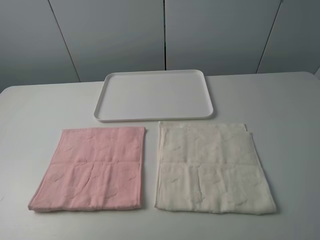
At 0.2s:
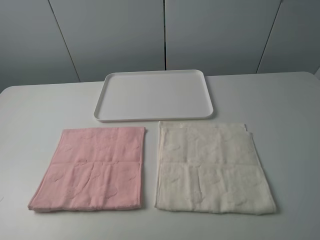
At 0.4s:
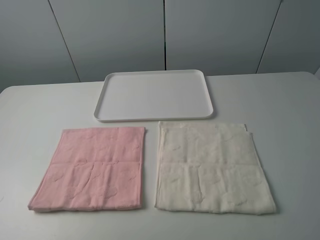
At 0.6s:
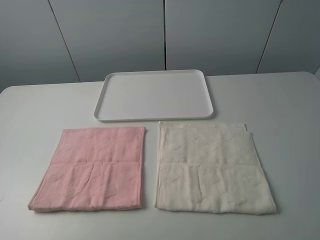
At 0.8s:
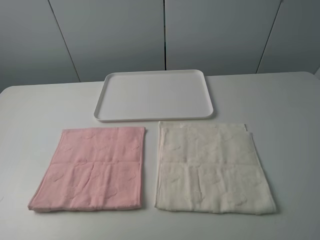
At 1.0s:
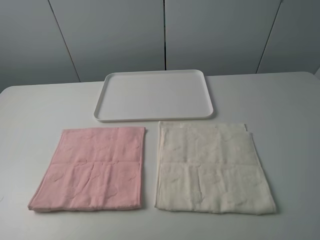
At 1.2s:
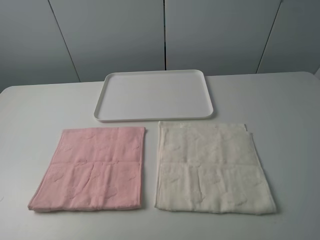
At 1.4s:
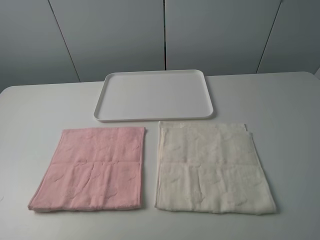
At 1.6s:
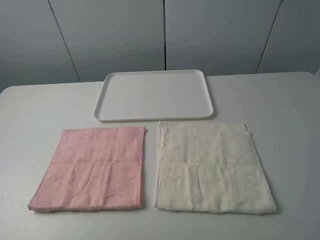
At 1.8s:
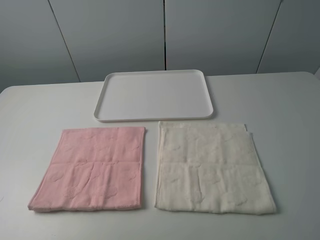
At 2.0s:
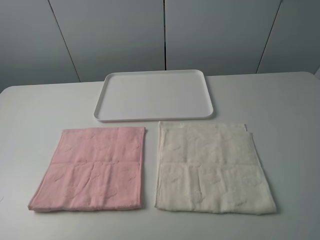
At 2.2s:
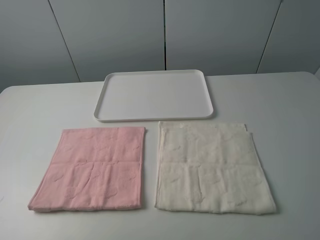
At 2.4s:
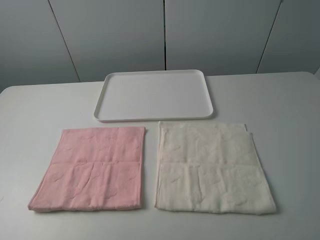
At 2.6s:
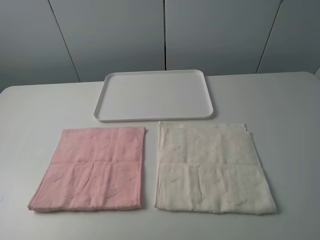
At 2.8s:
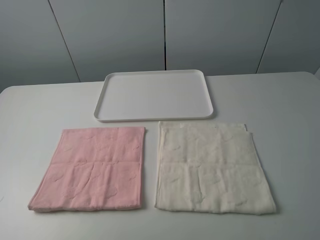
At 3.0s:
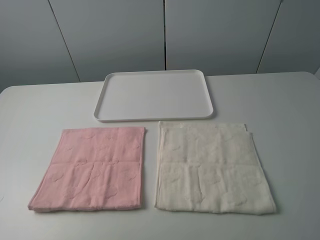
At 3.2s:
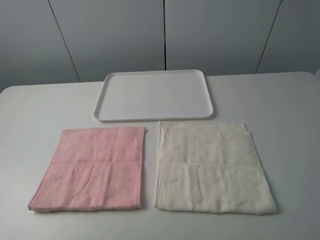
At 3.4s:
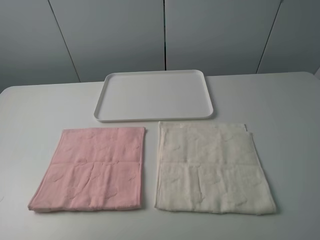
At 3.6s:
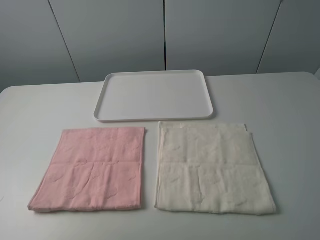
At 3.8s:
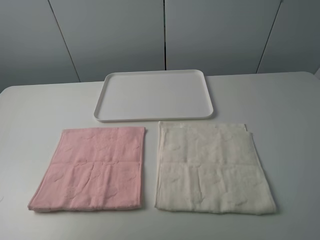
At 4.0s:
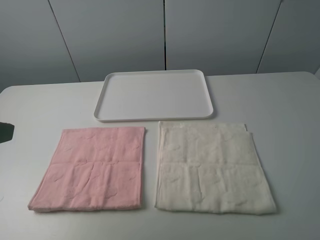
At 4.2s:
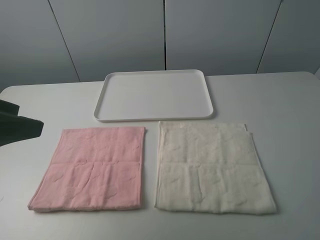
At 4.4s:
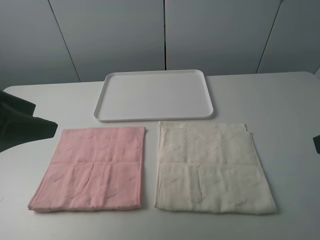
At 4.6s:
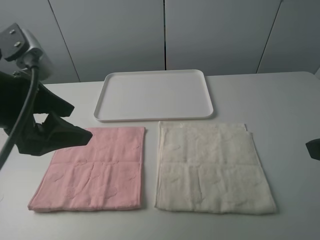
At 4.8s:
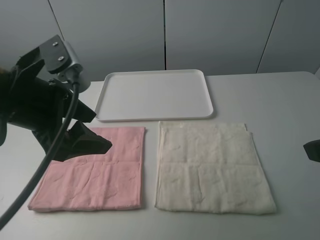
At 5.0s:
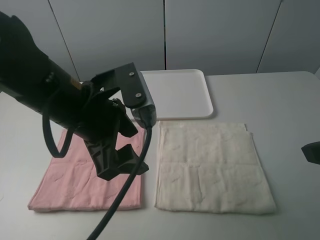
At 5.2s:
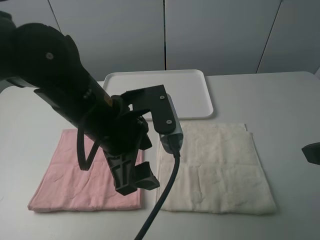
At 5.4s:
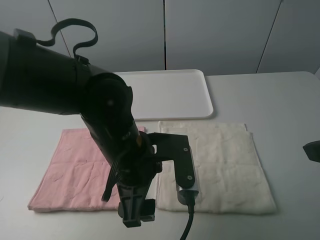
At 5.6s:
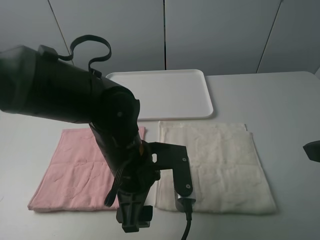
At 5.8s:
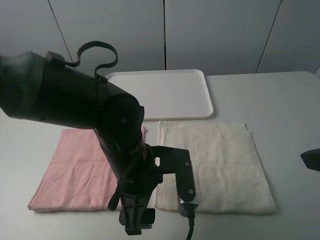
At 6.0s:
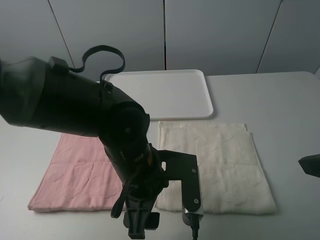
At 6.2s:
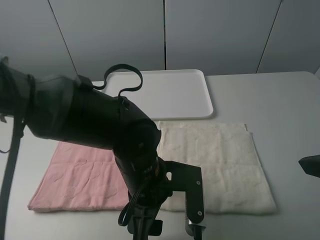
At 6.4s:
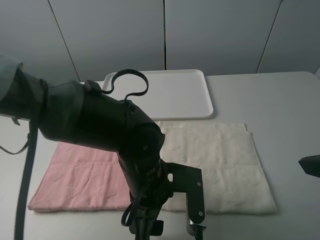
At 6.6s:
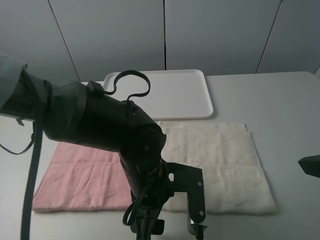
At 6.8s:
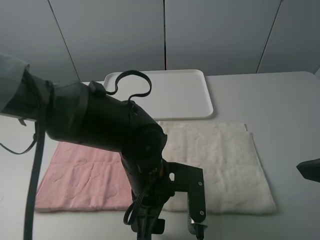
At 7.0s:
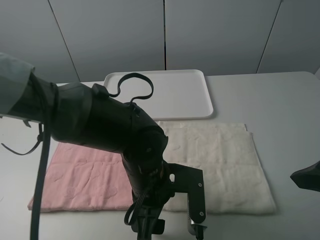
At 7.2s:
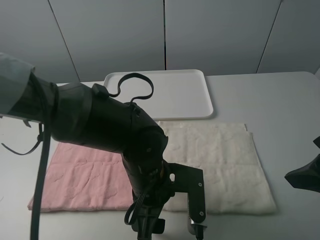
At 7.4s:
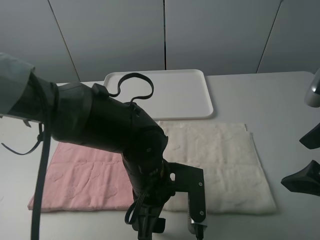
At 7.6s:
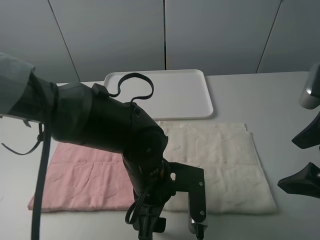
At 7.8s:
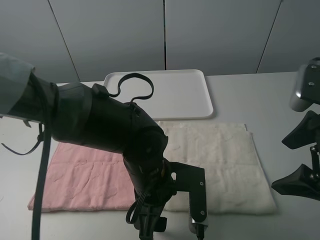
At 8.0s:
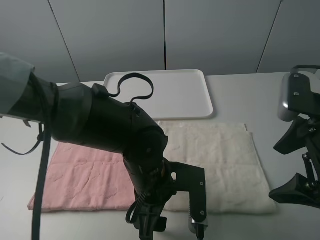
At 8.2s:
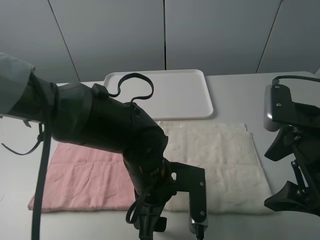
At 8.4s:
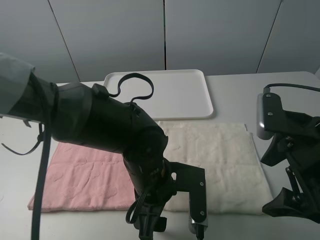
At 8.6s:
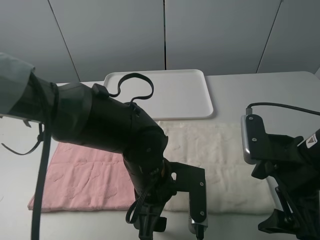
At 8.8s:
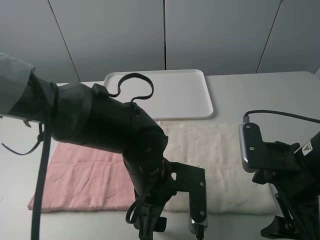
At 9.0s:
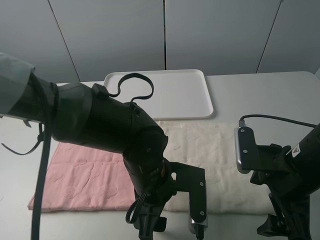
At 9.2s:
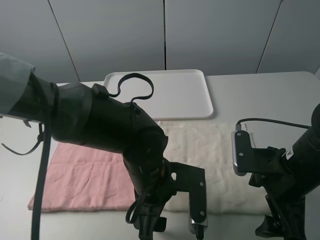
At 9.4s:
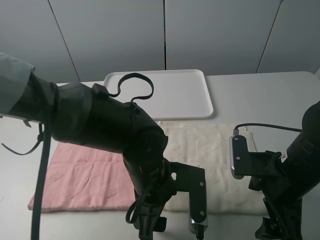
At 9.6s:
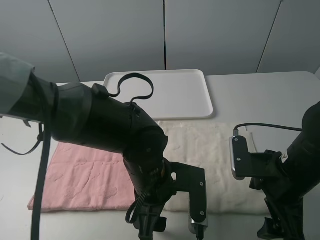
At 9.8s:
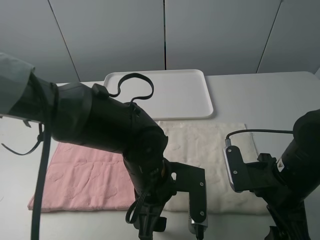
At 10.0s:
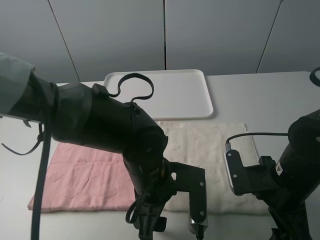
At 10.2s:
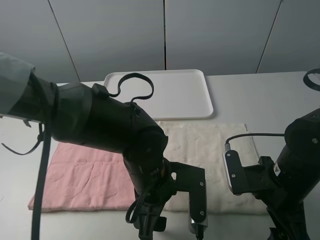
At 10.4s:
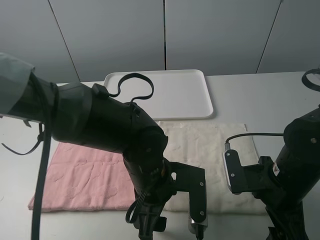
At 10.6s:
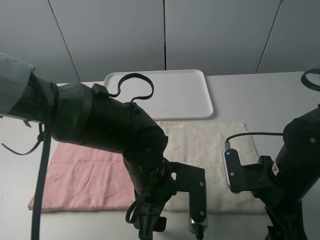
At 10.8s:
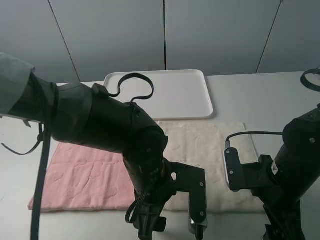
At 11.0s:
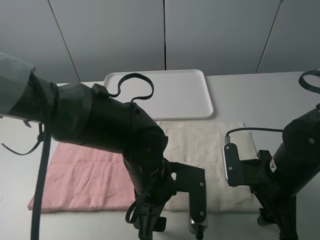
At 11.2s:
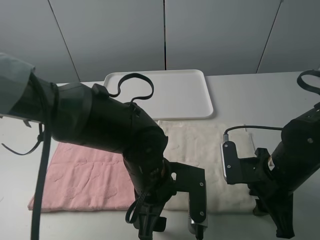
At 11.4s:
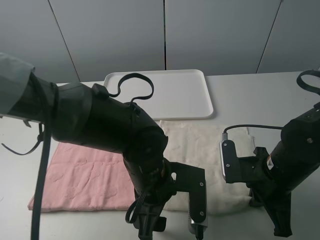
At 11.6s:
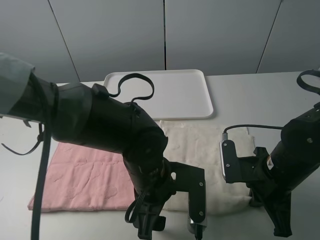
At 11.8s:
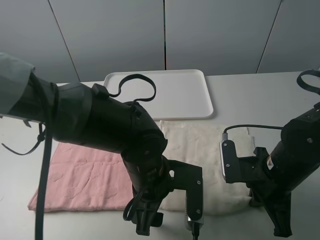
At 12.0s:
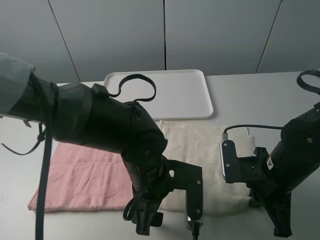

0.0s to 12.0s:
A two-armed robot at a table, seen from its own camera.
Task of the whole recording: fold one of the towels by two grippers and place it on the tray,then fold another towel by two grippers and place it on the folded towel.
0.0s to 3.0s: Both grippers stay put.
3.0s to 4.4s: The left gripper moves forward and to the right, about 20 cm.
4.4s to 6.0s: The left gripper goes about 25 cm to the right and downward.
6.0s to 7.6s: The right gripper ends up approximately 5 cm from where it was.
7.6s to 9.0s: The right gripper moves downward, approximately 10 cm.
9.0s to 10.4s: The grippers stay close to where they were, moving slightly.
10.4s to 12.0s: The right gripper closes its fingers.

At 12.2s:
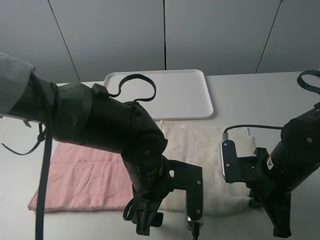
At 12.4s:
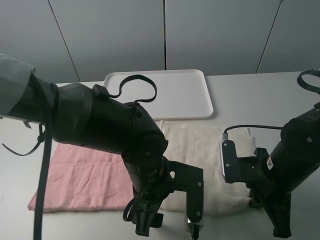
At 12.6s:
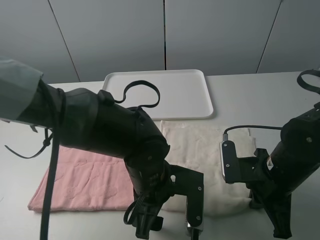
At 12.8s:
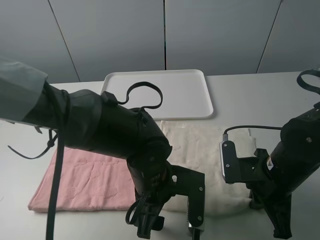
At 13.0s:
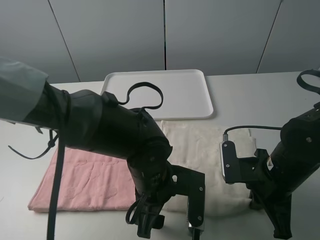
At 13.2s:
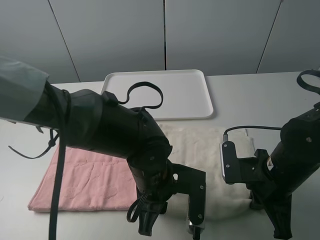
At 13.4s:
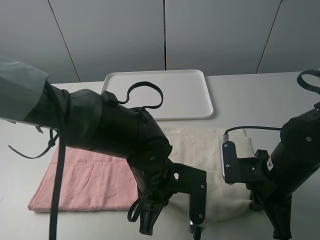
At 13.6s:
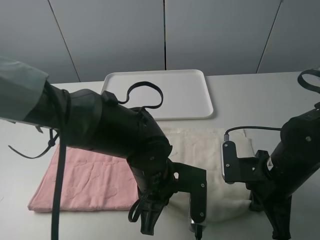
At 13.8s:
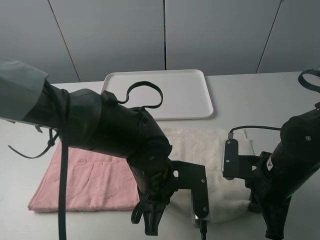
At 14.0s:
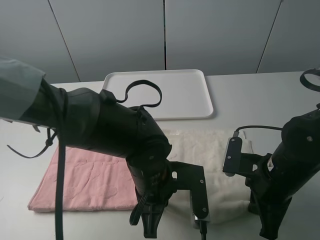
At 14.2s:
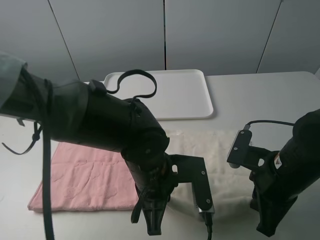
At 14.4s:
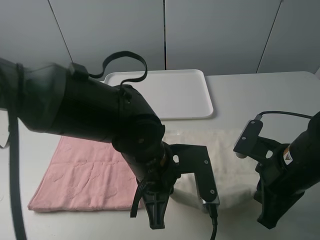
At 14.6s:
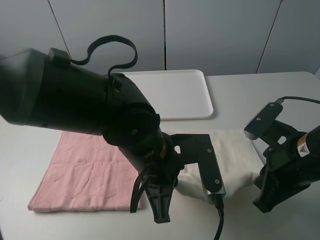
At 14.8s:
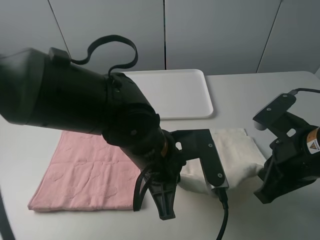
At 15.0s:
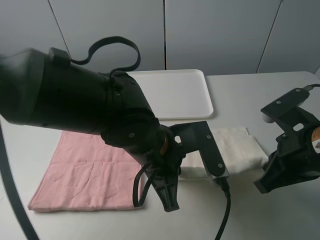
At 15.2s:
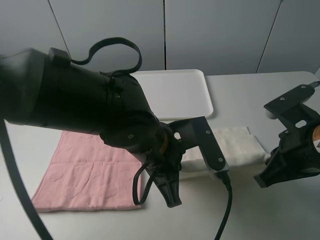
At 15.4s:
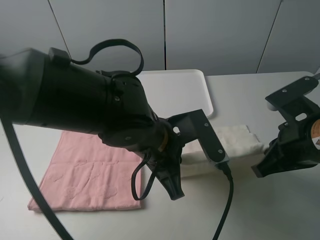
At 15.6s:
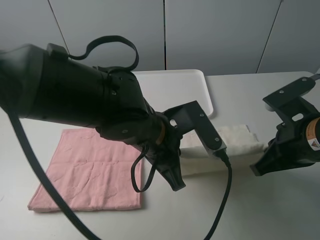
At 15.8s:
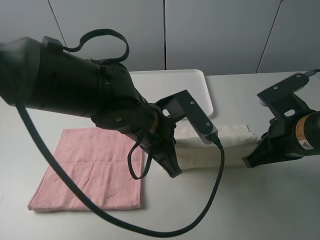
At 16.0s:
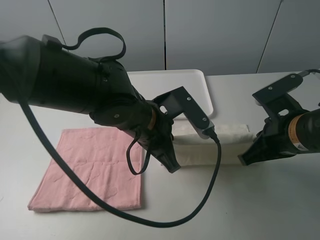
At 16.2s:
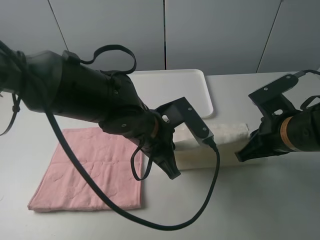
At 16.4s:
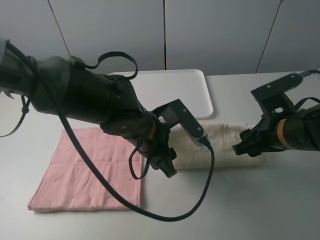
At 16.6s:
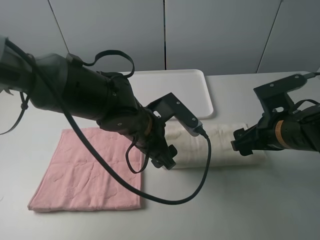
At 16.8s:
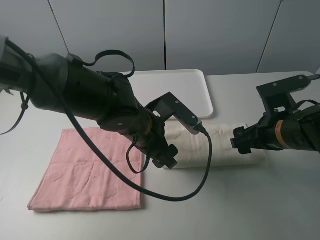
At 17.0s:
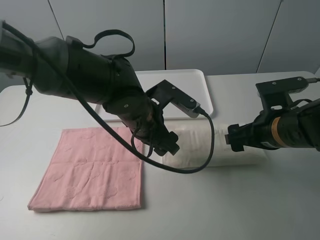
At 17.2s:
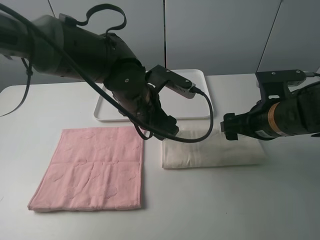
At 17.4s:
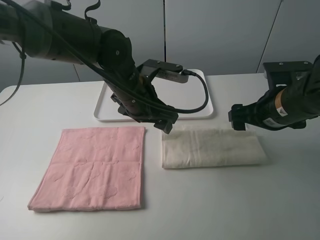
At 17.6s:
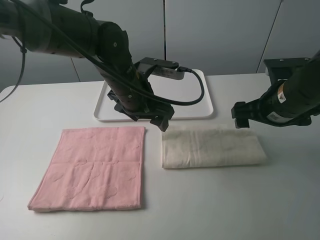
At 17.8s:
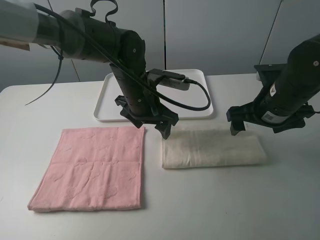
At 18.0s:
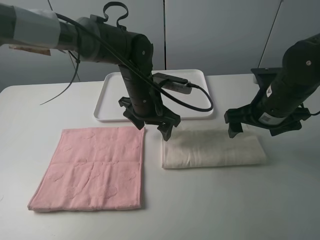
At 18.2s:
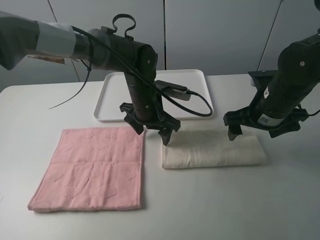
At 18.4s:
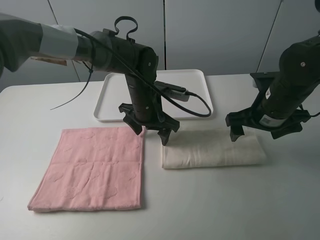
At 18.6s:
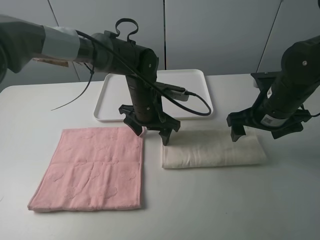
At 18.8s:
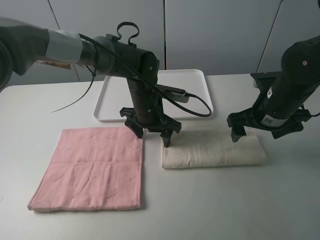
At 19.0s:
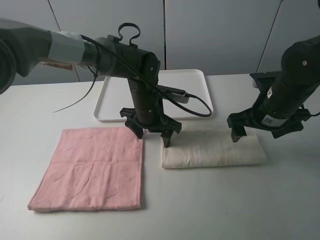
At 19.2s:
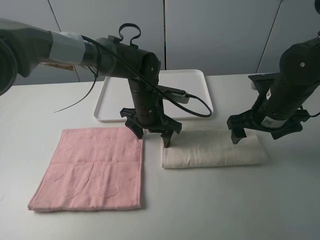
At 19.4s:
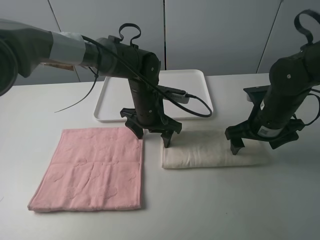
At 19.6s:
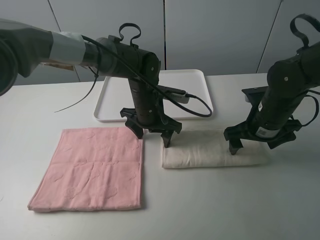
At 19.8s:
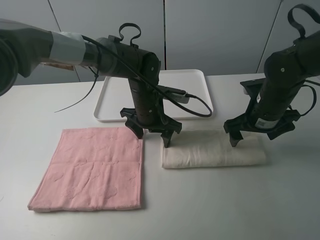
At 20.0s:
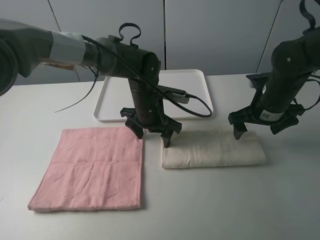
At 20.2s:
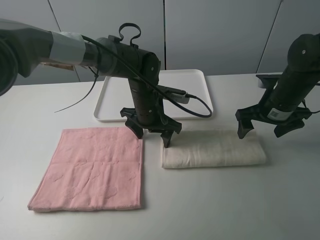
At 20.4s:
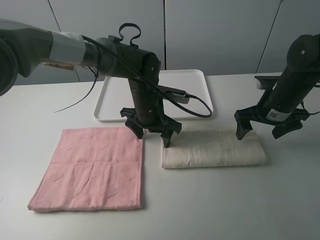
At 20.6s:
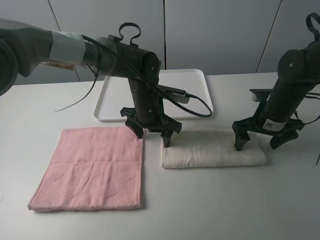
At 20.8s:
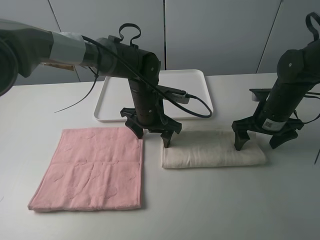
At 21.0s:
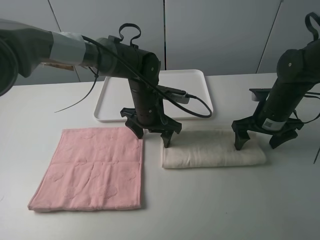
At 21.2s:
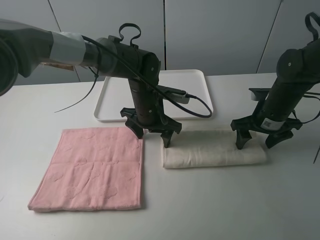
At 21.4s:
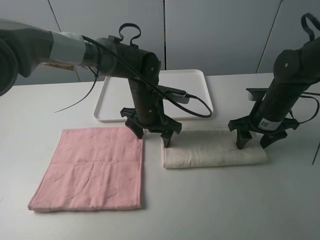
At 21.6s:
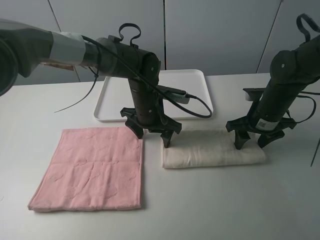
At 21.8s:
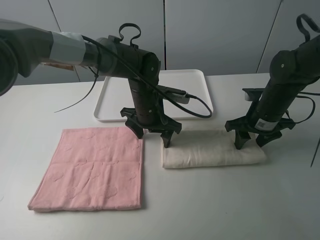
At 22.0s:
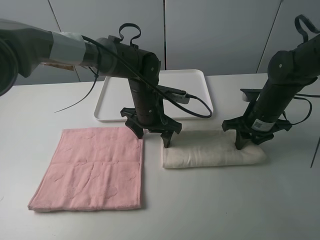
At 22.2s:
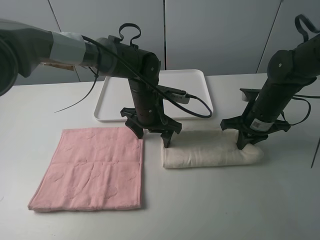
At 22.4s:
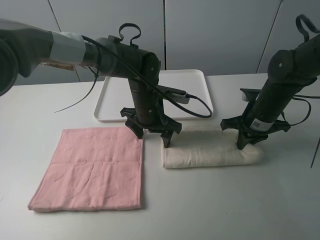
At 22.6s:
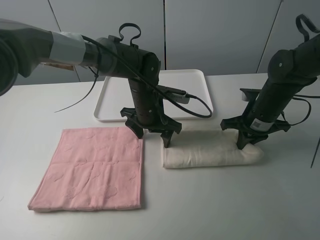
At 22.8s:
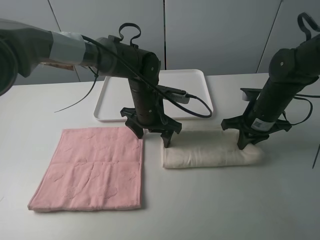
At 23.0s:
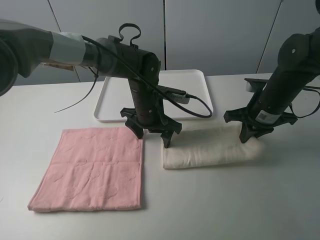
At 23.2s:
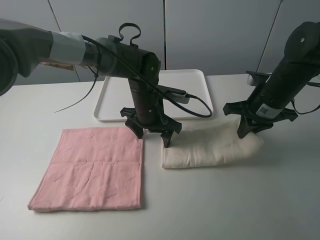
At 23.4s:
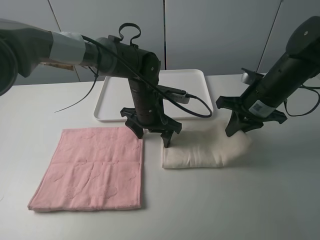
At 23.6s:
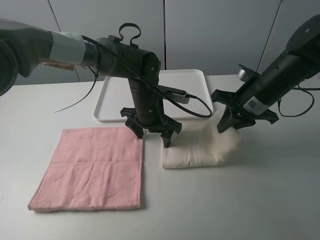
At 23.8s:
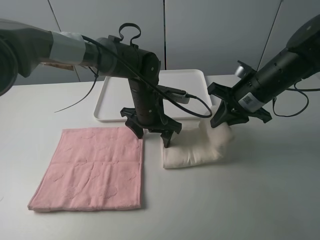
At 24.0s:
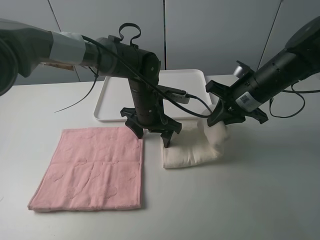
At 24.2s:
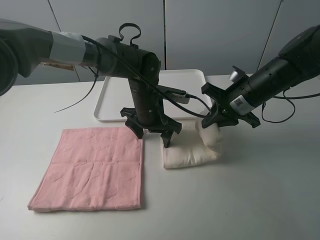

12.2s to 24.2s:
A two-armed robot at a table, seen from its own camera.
Task of the whole recording: fold one of the towels by two grippers and place it on the tray,then fold another towel by two grippers and place it on the folded towel.
Step, 13.6s to 16.6s: Fold the white towel upwards with the left gripper.
Step, 16.8s to 18.8s: Press the white towel with the left gripper.
Step, 19.0s to 22.2s: Grasp the white towel with the right gripper.
12.2s to 13.8s: The left gripper closes its fingers.
13.8s to 15.2s: The two grippers go approximately 5 cm upward.
15.2s to 16.6s: Both grippers move forward, approximately 5 cm. The right gripper opens up; the left gripper opens its fingers.
16.6s to 18.2s: The right gripper goes roughly 5 cm forward; the left gripper heads forward, covering some 10 cm.
18.2s to 19.8s: The grippers move only a little.
19.8s to 21.2s: The grippers make only small movements.
21.2s to 22.6s: The right gripper closes up.
22.6s to 24.2s: The right gripper is displaced upward by about 5 cm.
